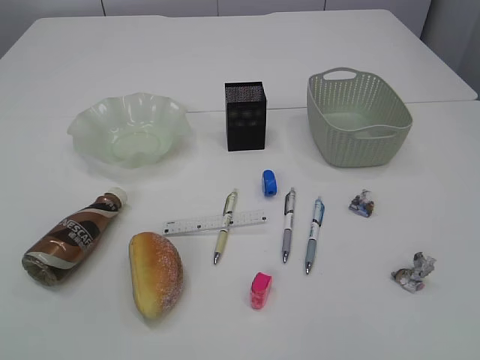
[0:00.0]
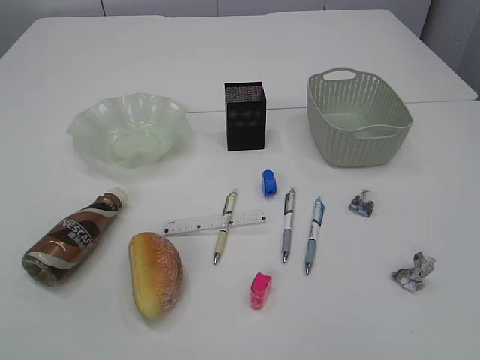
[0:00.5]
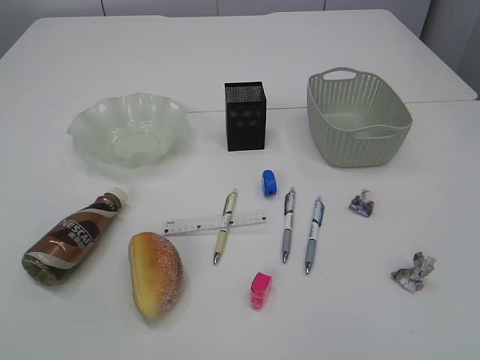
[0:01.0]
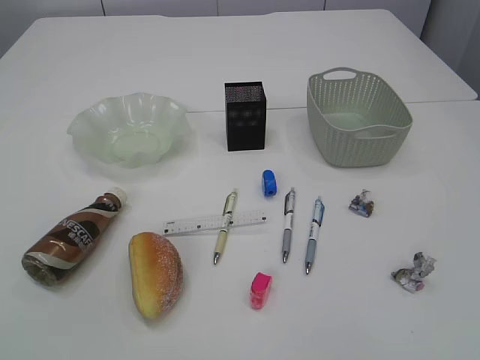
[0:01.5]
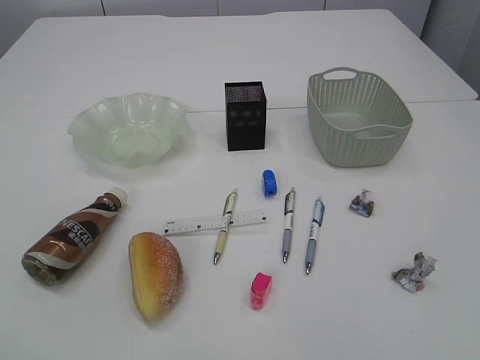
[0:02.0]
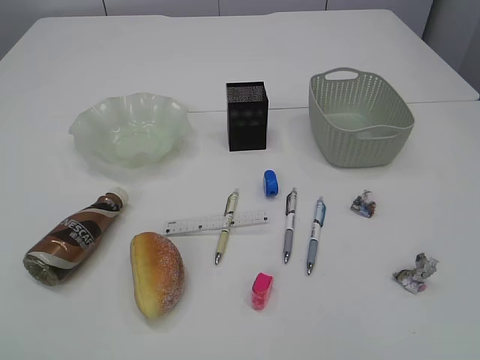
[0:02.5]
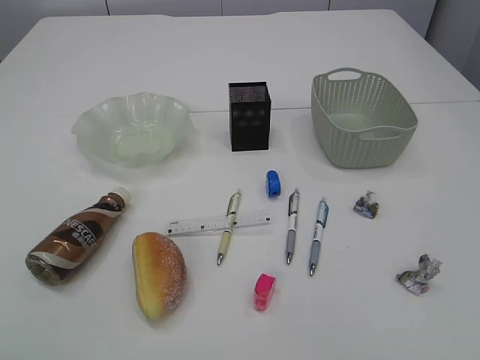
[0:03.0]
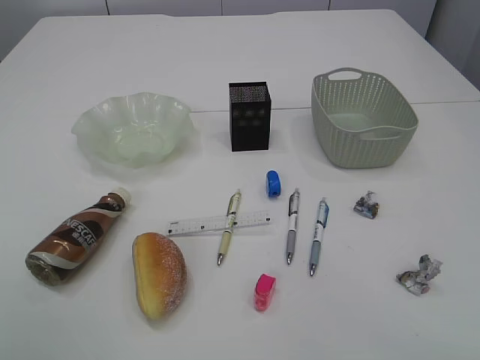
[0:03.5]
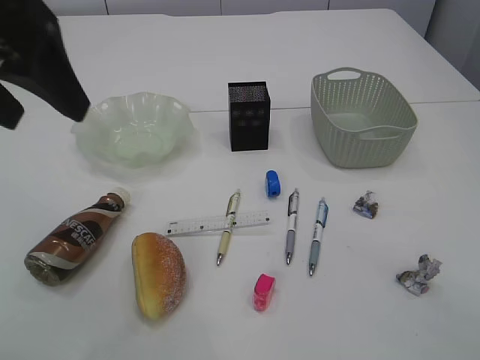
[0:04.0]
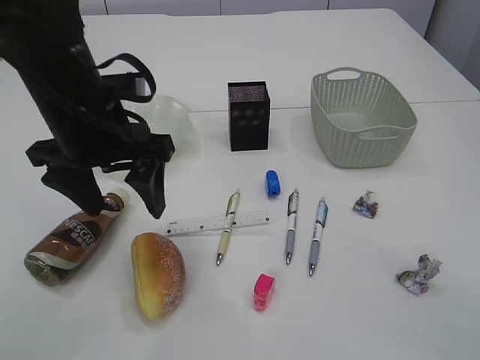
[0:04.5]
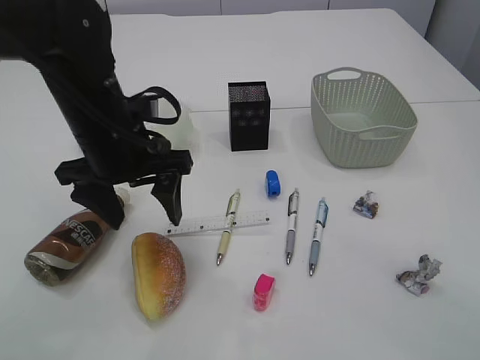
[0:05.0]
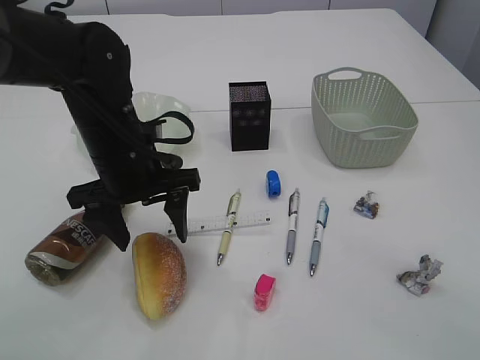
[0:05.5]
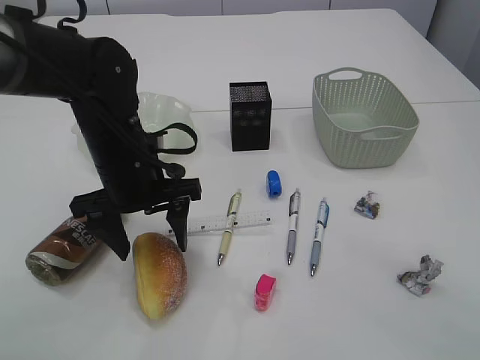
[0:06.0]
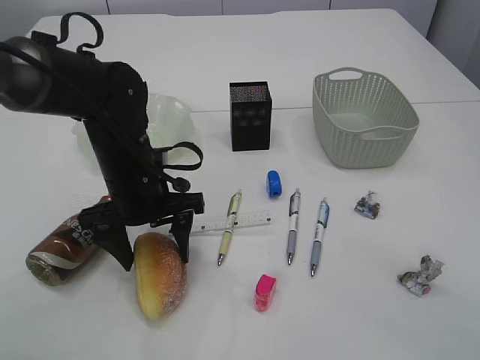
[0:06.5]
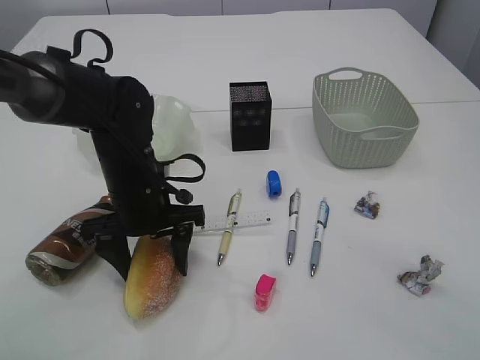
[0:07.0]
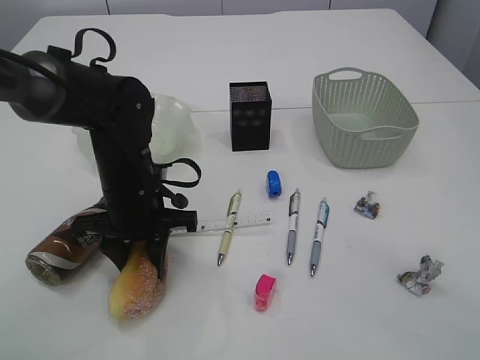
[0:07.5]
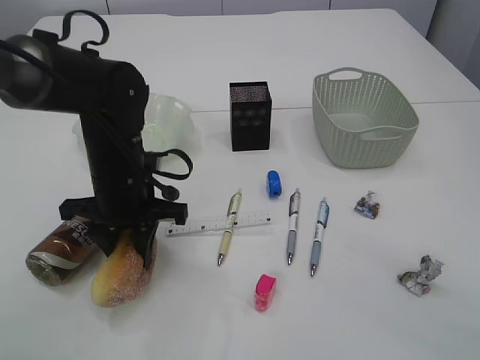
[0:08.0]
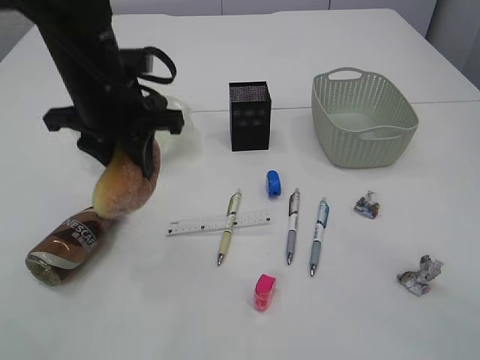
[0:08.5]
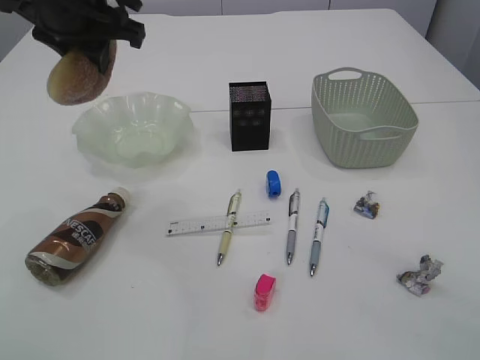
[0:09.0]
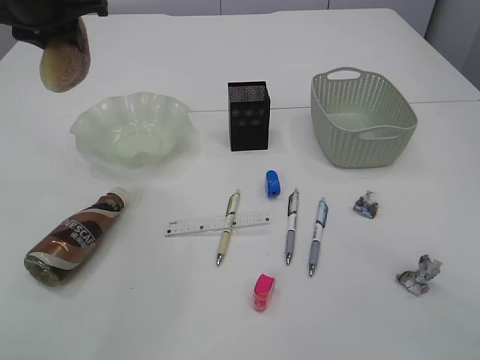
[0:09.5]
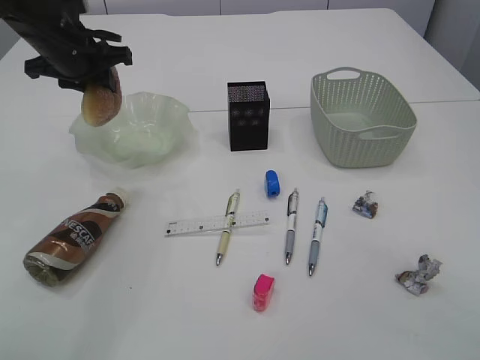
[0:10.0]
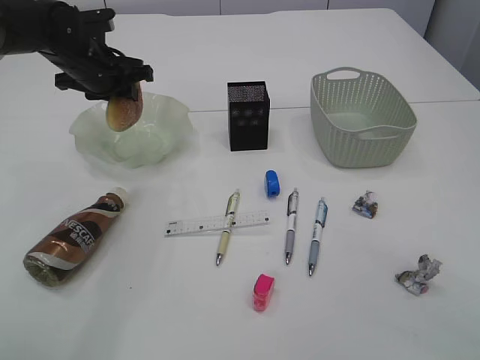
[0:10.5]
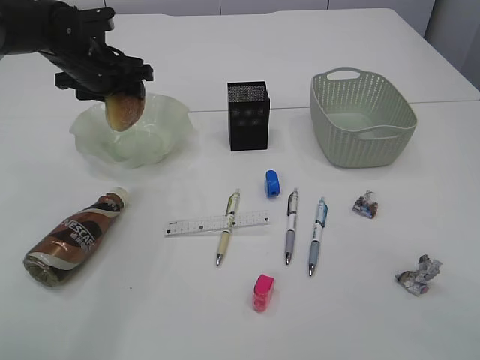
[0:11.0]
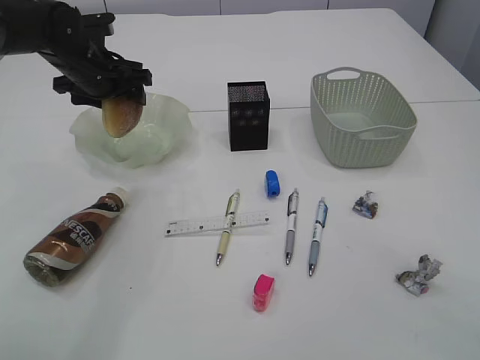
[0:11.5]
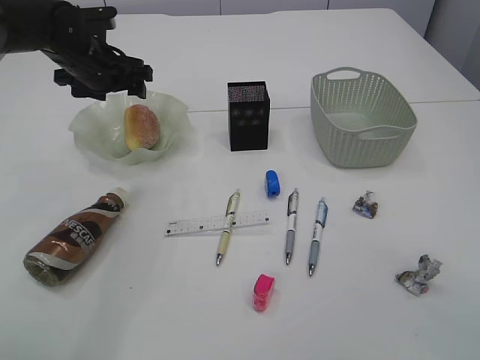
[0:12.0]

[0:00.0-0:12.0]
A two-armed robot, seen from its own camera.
0:02.0 to 0:04.0: The right gripper moves forward, roughly 15 cm, while the left gripper moves forward and to the right, approximately 25 cm, and opens its fingers.
0:04.0 to 0:06.0: The left gripper is displaced downward by about 20 cm.
0:06.0 to 0:08.0: The left gripper closes.
0:08.0 to 0:10.0: The left gripper heads forward, upward and to the left, covering some 20 cm.
0:10.0 to 0:12.0: The left gripper opens up.

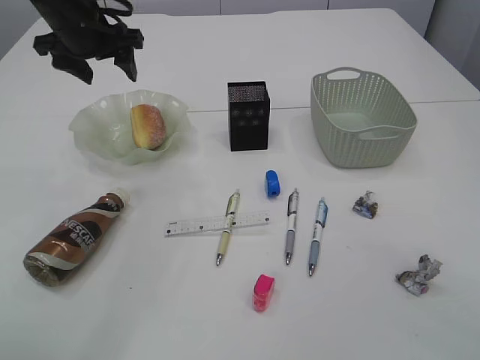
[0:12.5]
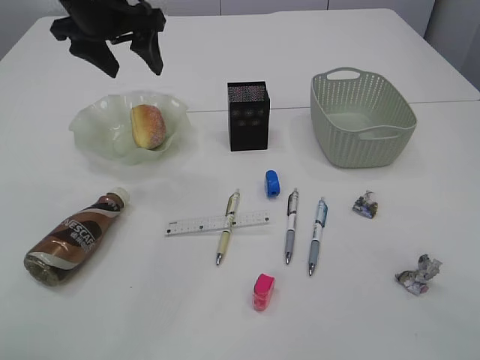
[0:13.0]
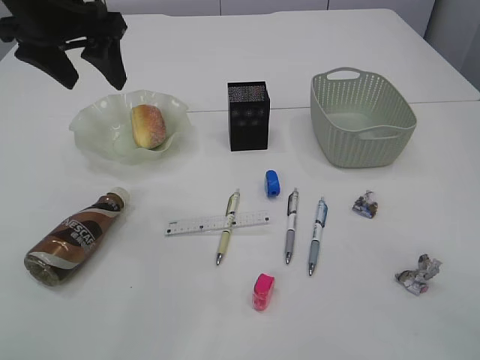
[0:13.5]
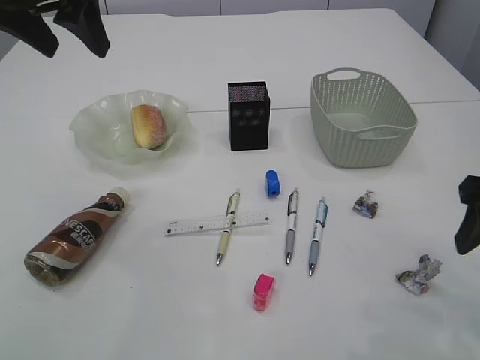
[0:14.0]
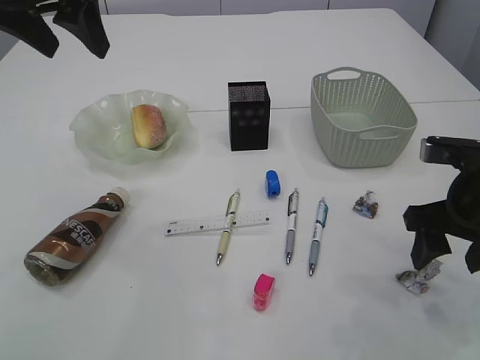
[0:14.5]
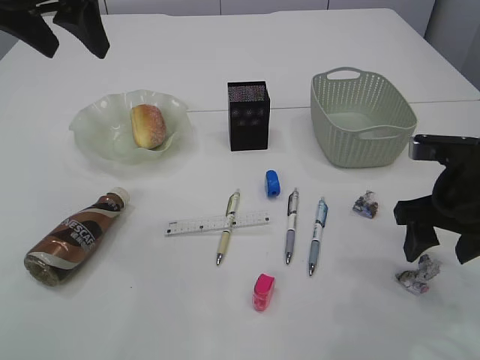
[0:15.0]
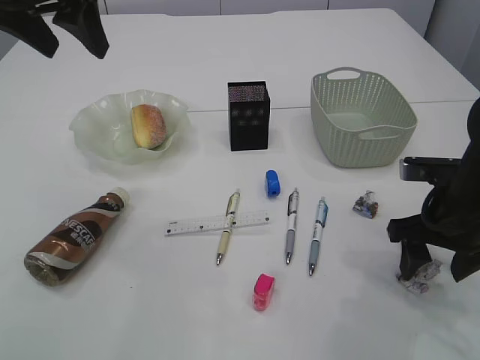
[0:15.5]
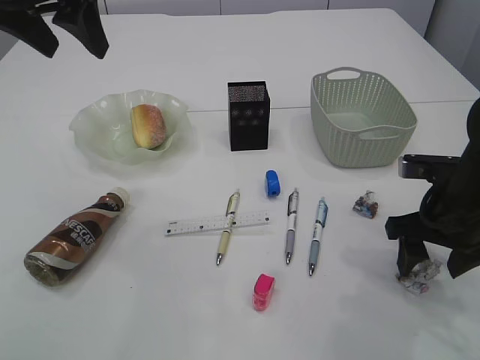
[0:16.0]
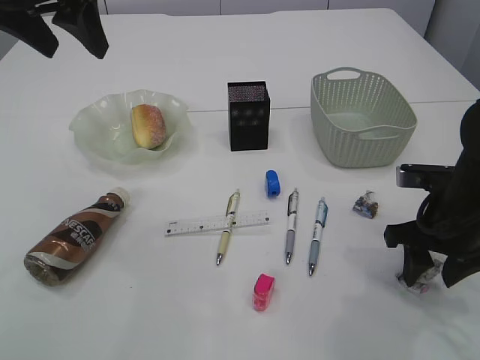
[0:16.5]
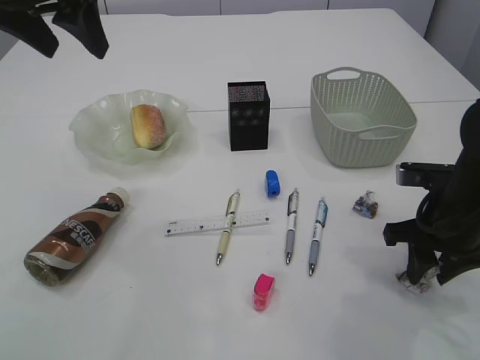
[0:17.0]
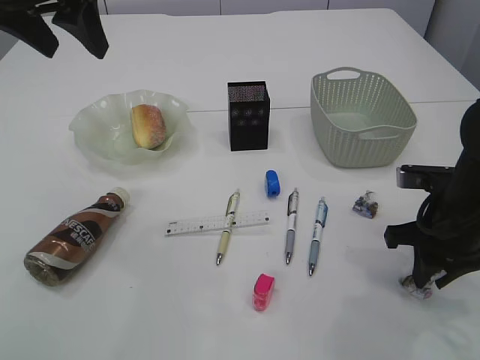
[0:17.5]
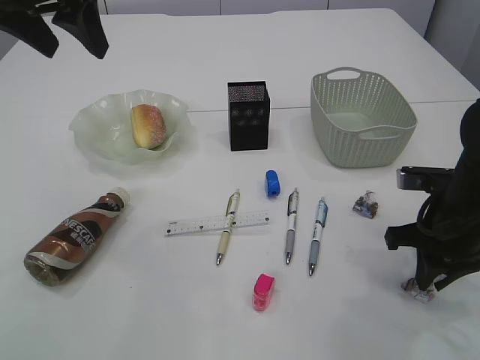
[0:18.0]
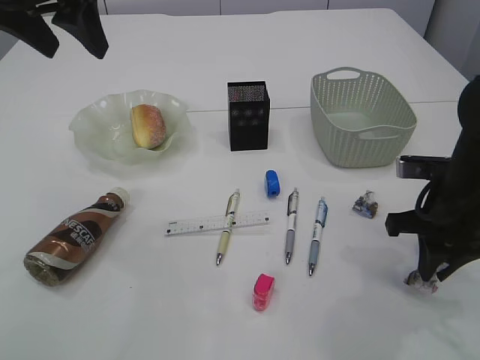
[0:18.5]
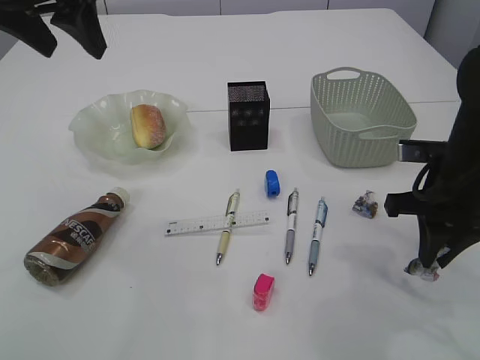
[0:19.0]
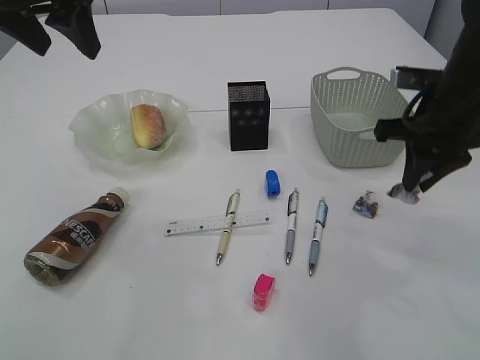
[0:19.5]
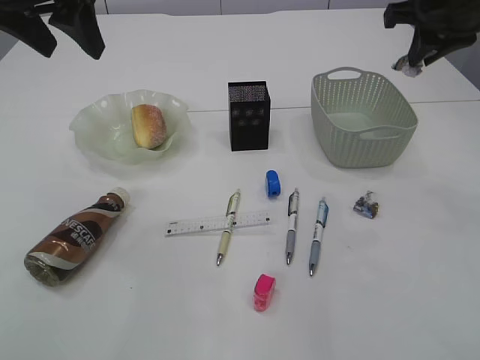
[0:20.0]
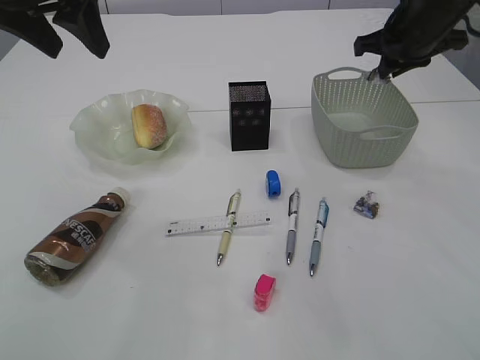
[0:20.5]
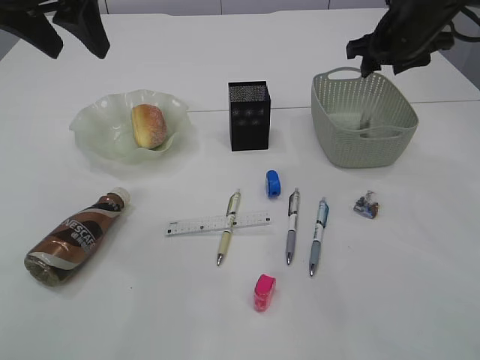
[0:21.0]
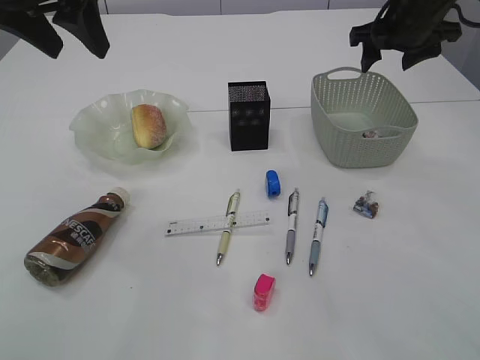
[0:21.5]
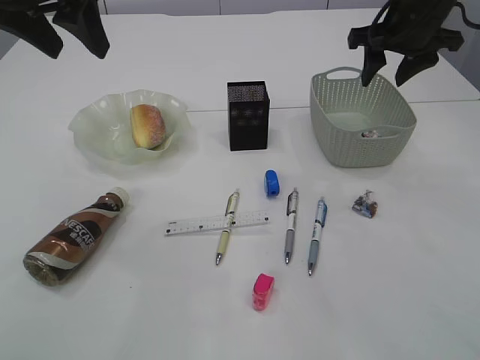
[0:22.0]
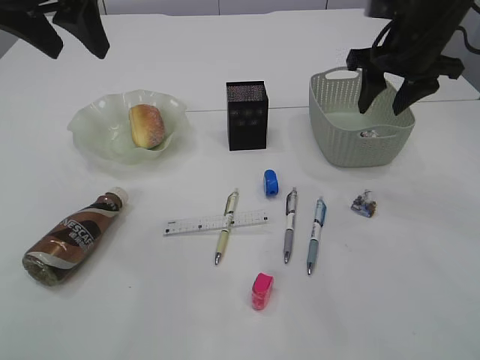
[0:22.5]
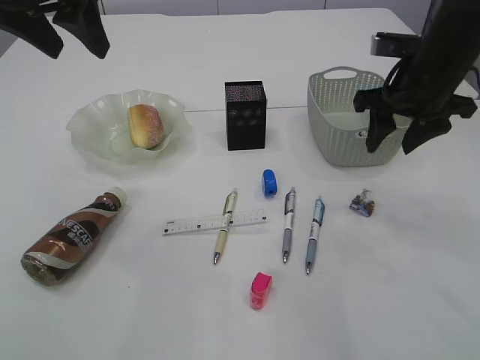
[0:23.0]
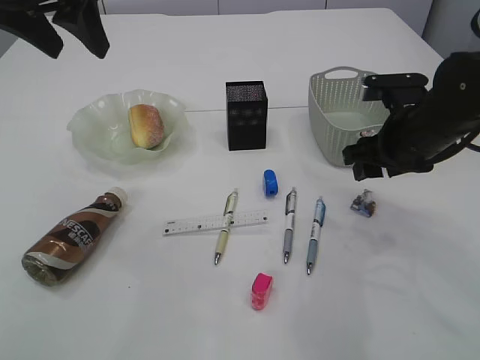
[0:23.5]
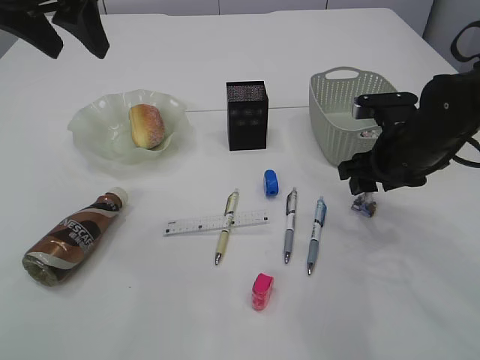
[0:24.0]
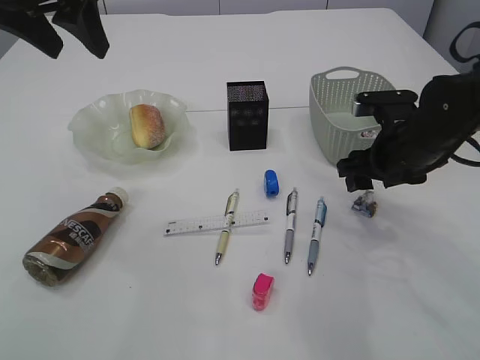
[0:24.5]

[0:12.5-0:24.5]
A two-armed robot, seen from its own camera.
Step, 0:12.5 to 0:19.0: Pick up the waste paper.
Step, 0:19.5 to 0:22.0: Place the waste paper in the basket.
0:12.5 to 0:14.5: The left gripper shifts about 15 cm backward and upward, while the right gripper moves downward and forward, some 15 cm.
0:14.5 to 0:16.5: The right gripper travels downward by approximately 5 cm.
0:16.5 to 0:18.5: The right gripper closes its fingers.
0:18.5 to 0:20.5: The right gripper heads forward and upward, covering some 20 cm.
0:20.5 to 0:22.5: The right gripper opens its fingers.
0:22.5 to 0:24.5: The right gripper moves downward and backward, approximately 15 cm.

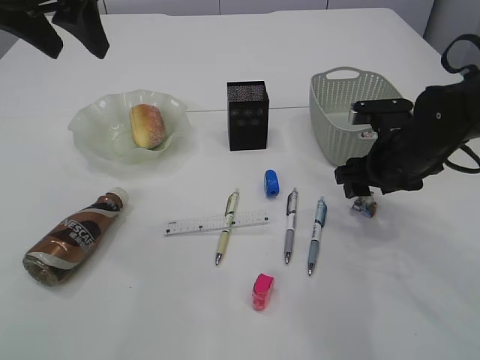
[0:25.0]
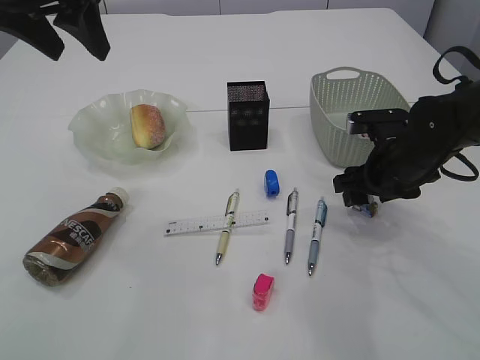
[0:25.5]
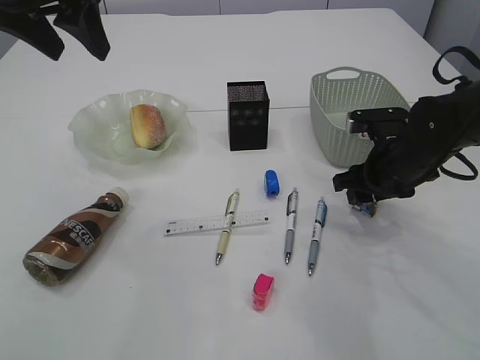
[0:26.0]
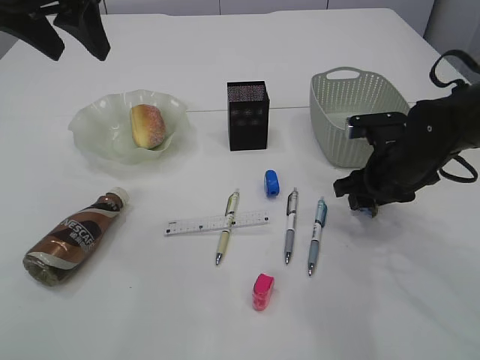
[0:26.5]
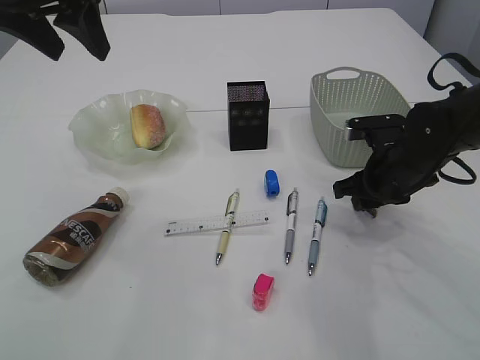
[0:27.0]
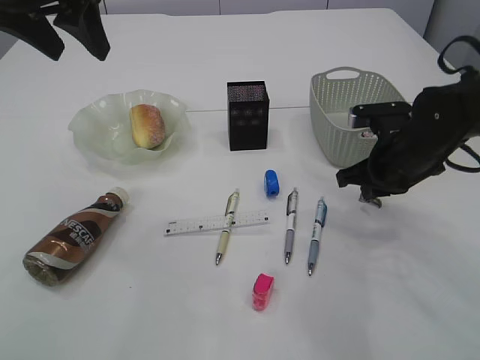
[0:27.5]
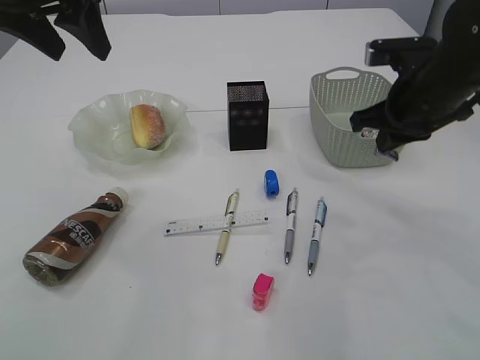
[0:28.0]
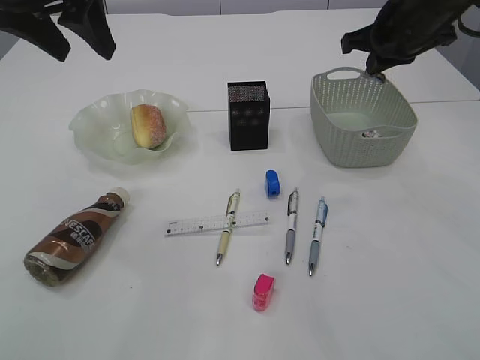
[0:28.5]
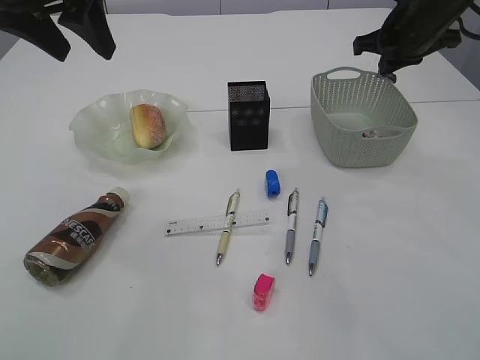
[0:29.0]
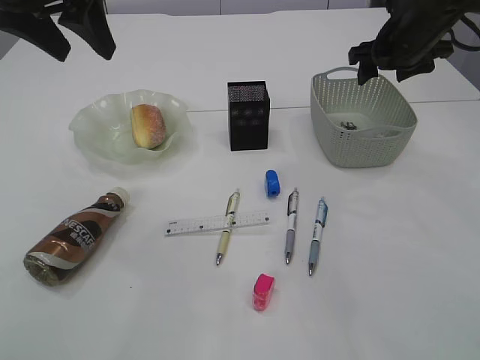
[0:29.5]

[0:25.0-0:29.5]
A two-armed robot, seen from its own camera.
Step, 0:25.0 to 0:27.5: Pick up the waste paper.
0:25.0 to 0:27.0: The right gripper closes its fingers.
0:27.0 to 0:29.5: The right gripper is displaced upward and forward by roughly 15 cm, and opens.
